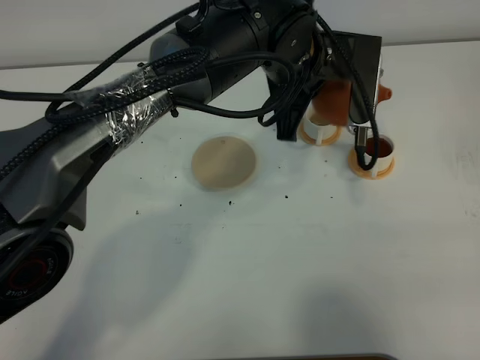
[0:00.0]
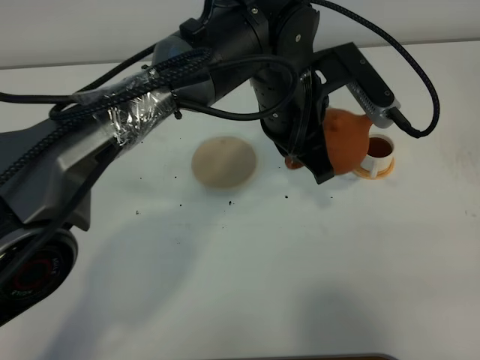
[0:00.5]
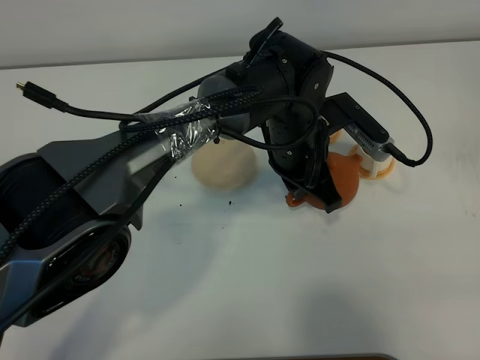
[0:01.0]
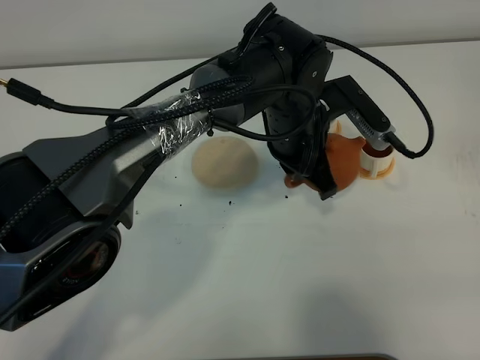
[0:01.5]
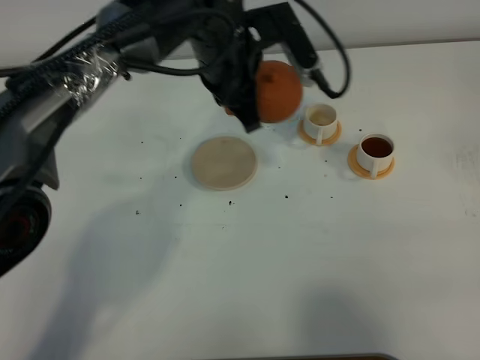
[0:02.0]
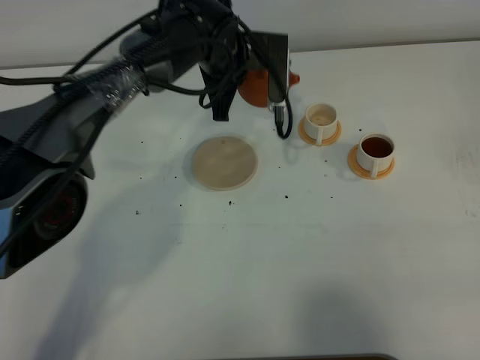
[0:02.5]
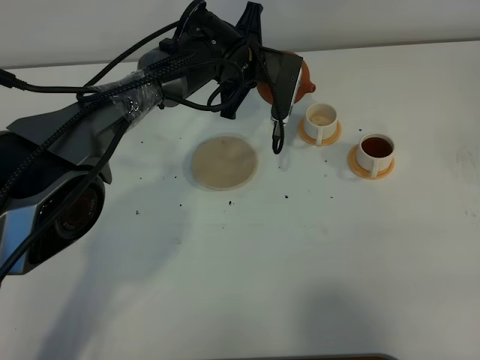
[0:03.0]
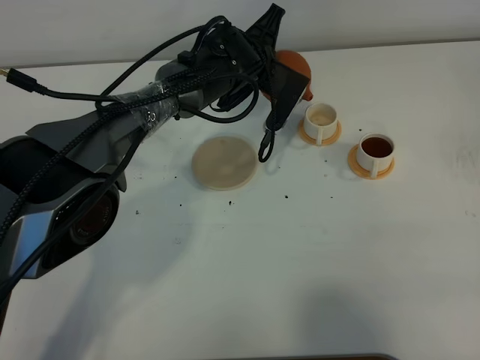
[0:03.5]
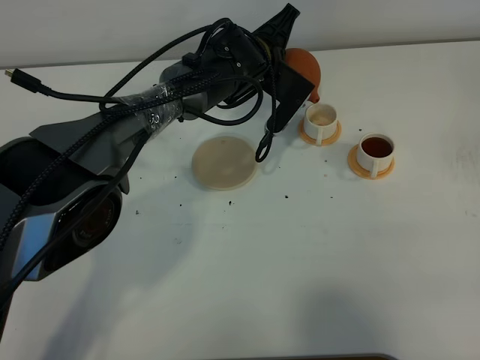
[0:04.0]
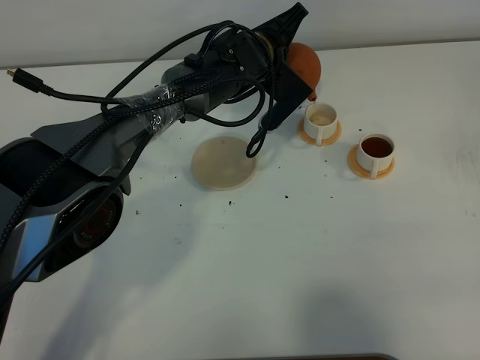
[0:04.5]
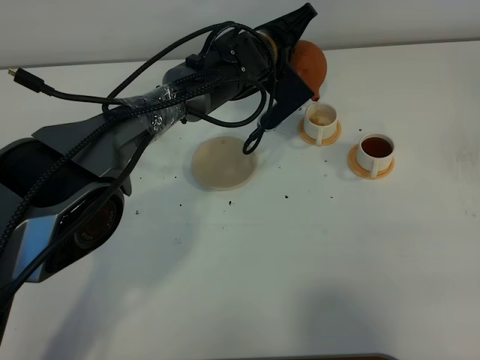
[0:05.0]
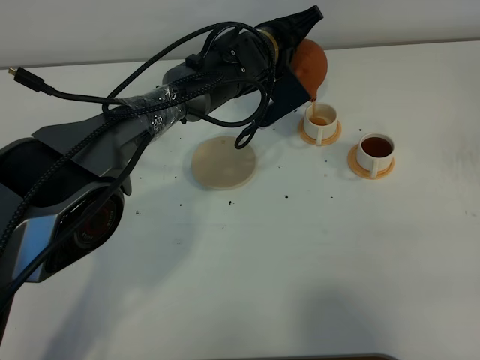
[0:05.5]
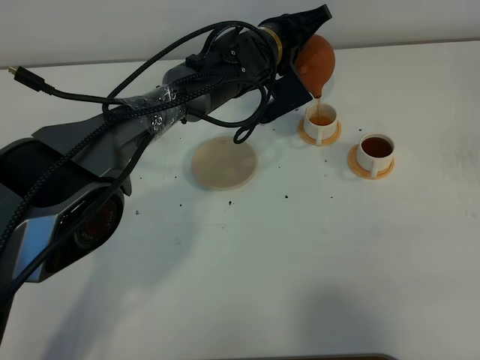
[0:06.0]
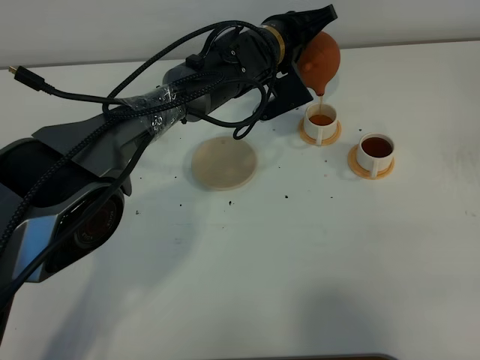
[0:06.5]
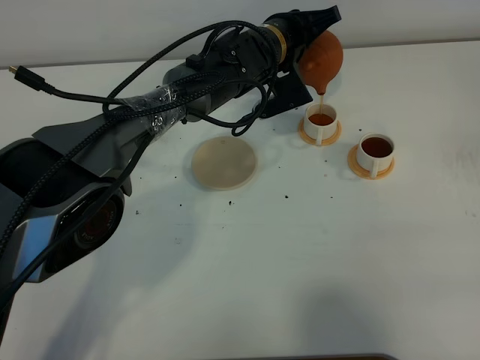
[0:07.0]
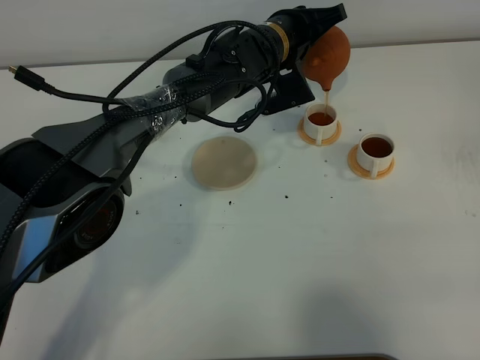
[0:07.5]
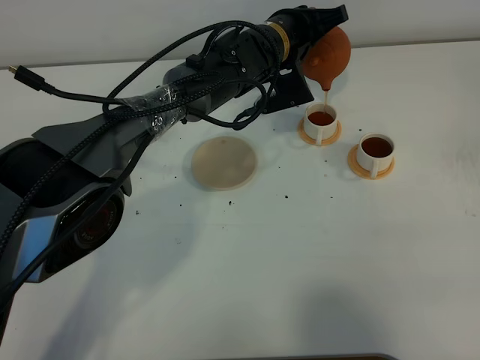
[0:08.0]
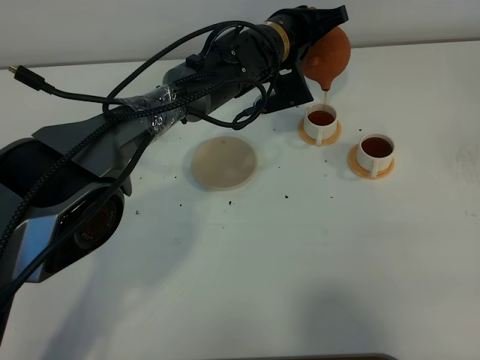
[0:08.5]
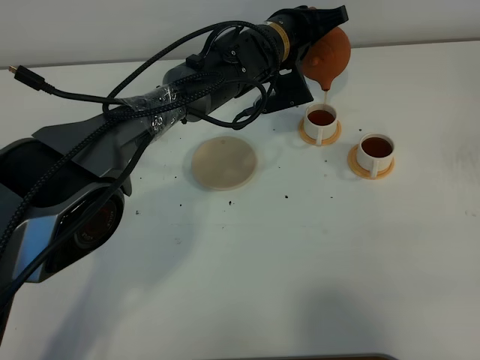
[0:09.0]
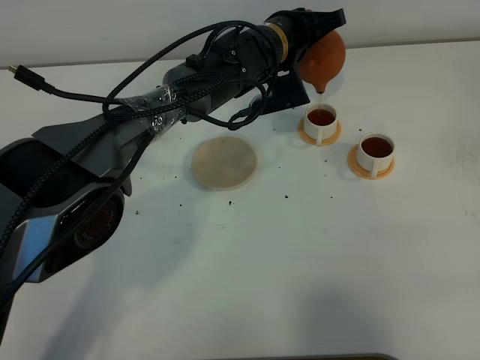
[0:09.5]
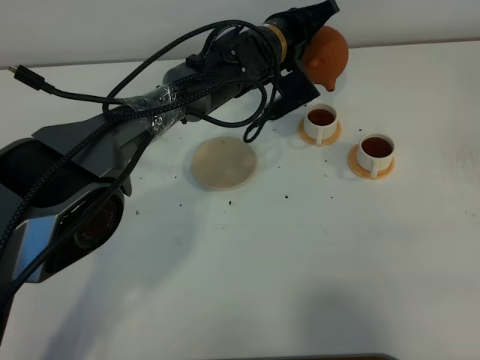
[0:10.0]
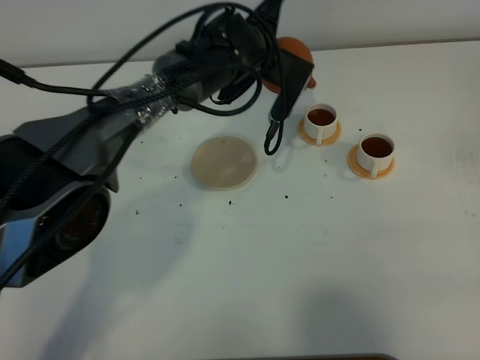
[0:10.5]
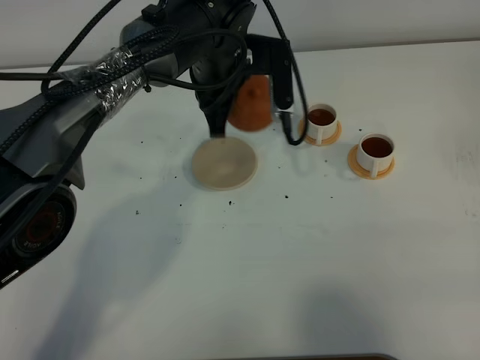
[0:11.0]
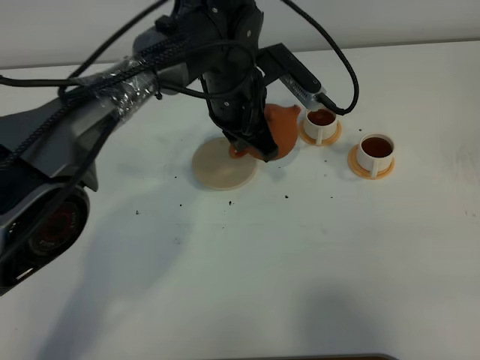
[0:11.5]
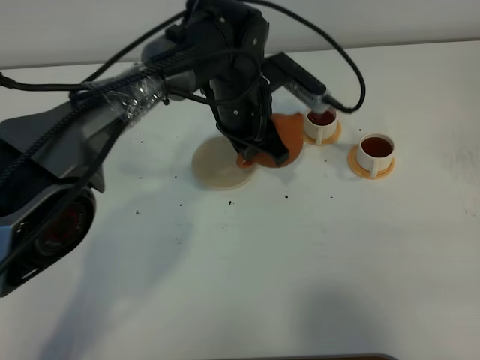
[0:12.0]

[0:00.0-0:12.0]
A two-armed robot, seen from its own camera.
Task of the whole recording: grasp the brown teapot and pour the tea into the two white teacups one by one, put the brown teapot back in its original place.
Step, 0:00.0 to 0:10.0: Pour tea into the teacup with the left gripper.
0:00.0 to 0:02.0: The left gripper is displaced to the left by about 10 cm, and goes downward and returns, about 10 cm each way.
0:02.0 to 0:04.0: The left gripper moves downward and forward, some 10 cm.
0:06.0 to 0:10.0: The grippers make only small movements.
0:10.0 to 0:12.0: The left gripper travels backward by roughly 5 cm.

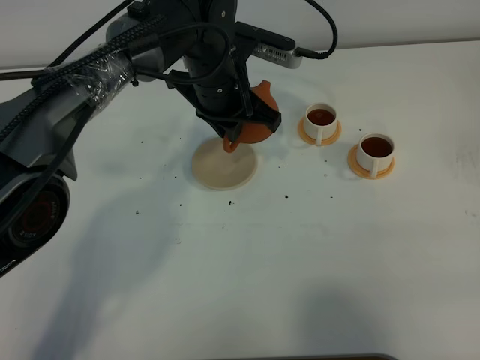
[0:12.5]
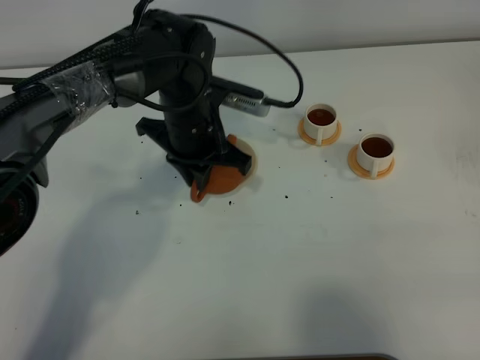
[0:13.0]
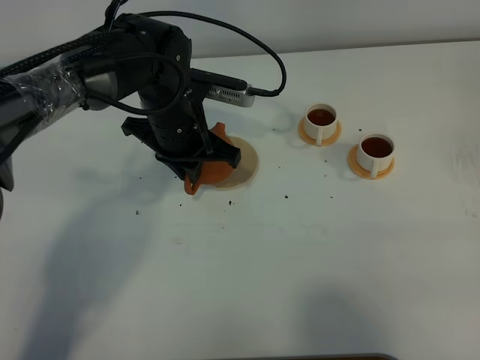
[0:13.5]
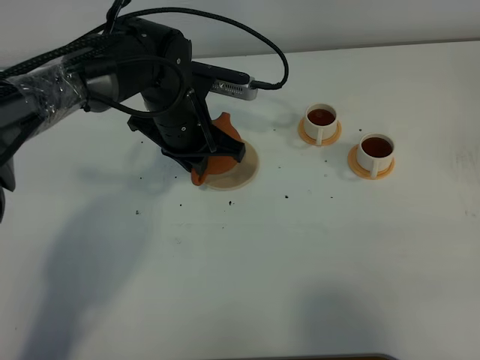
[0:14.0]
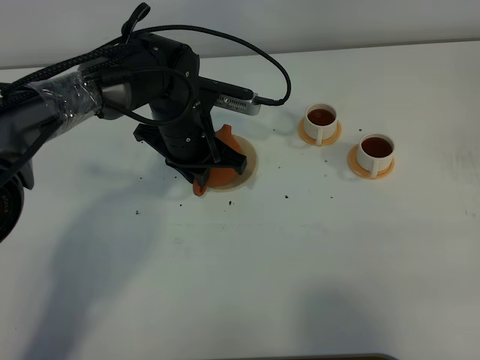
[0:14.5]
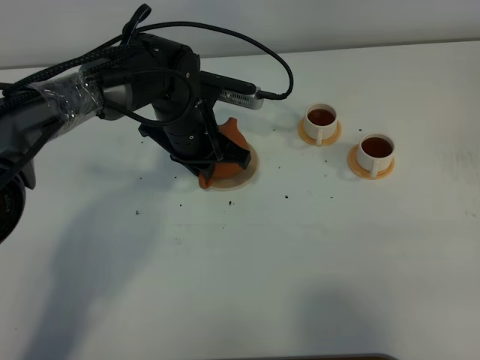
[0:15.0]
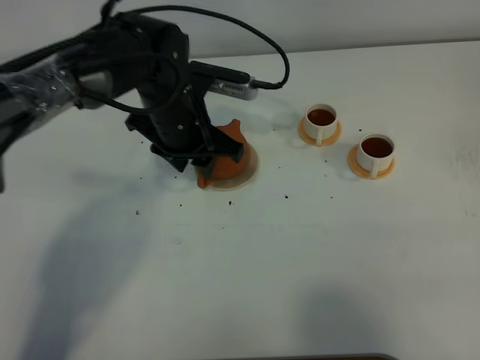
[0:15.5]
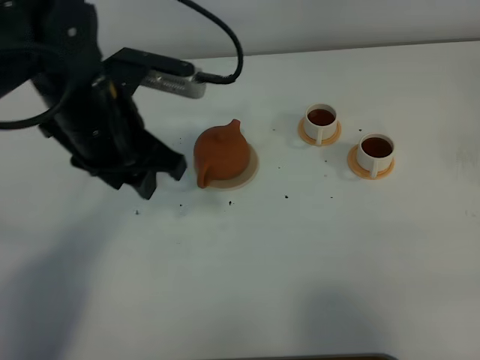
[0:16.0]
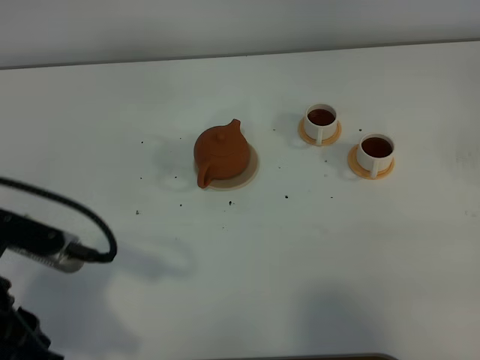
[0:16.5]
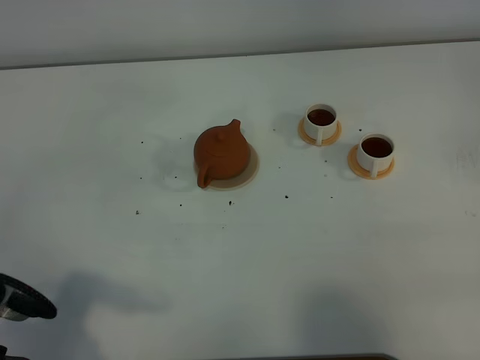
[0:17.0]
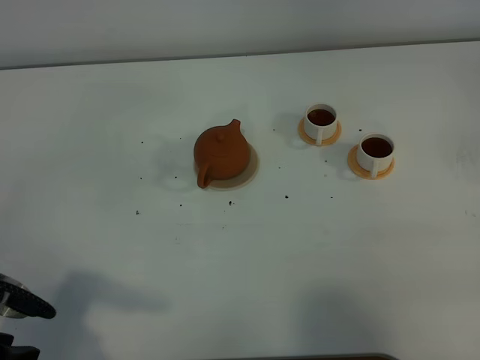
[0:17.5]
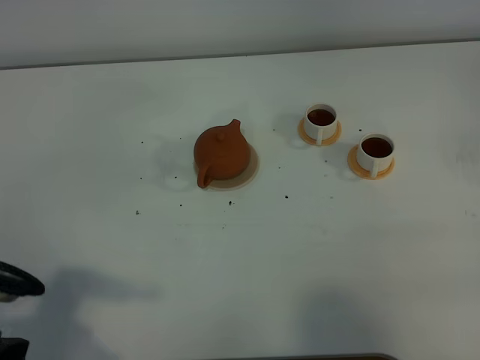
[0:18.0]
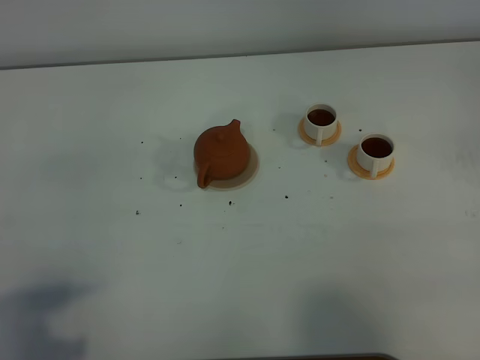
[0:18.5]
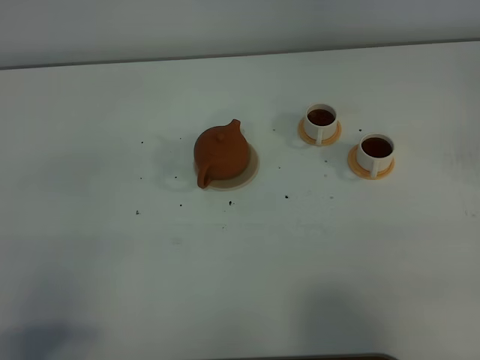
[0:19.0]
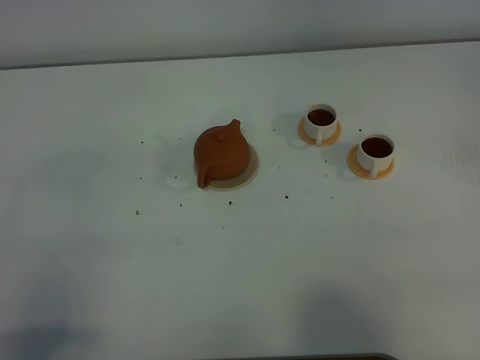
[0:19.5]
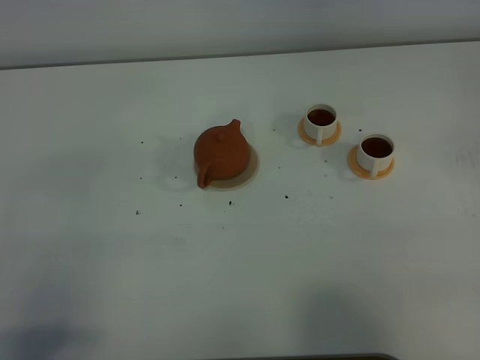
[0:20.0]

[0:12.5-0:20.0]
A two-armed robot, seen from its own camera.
Task of the whole recording: grasp the brown teapot and pour the tea into the two white teacups one by one, put the brown teapot back in its original place.
0:12.5 to 0:14.5: The left gripper shifts roughly 5 cm downward.
0:14.5 to 0:16.5: The left gripper moves backward and to the left, about 30 cm, and opens its fingers.
0:16.5 to 0:18.0: The grippers stay close to where they were, moving slightly.
0:18.0 to 0:20.0: The left gripper moves backward, approximately 10 cm.
